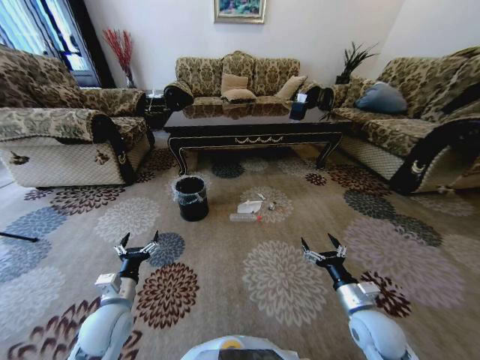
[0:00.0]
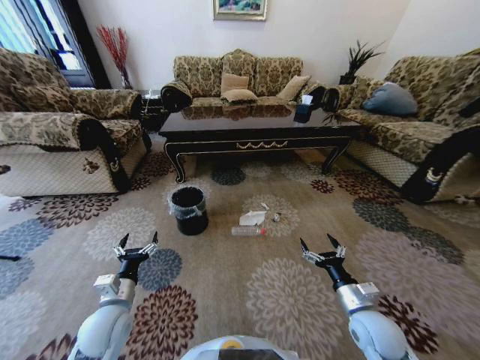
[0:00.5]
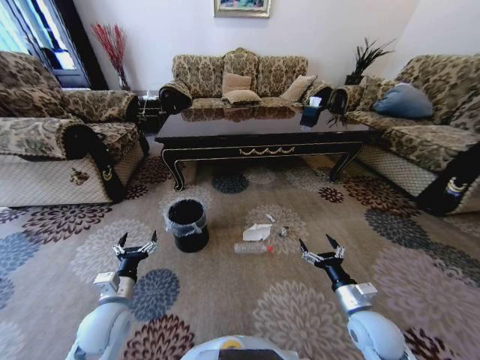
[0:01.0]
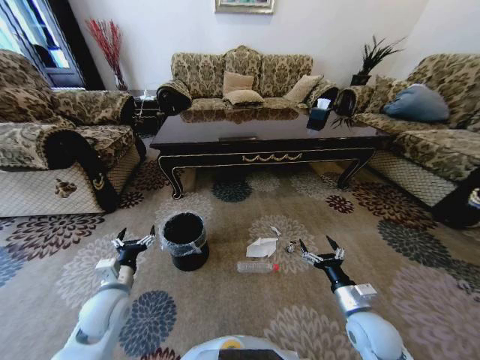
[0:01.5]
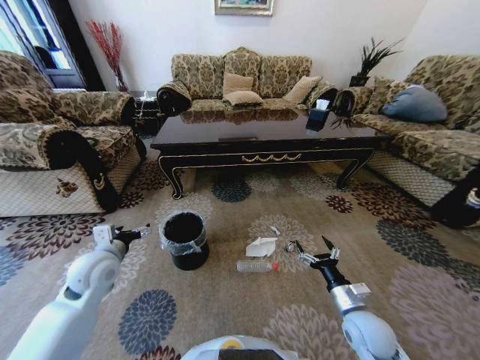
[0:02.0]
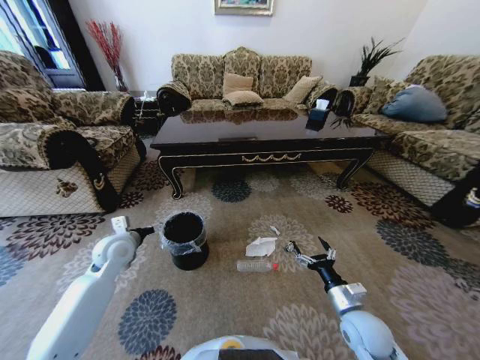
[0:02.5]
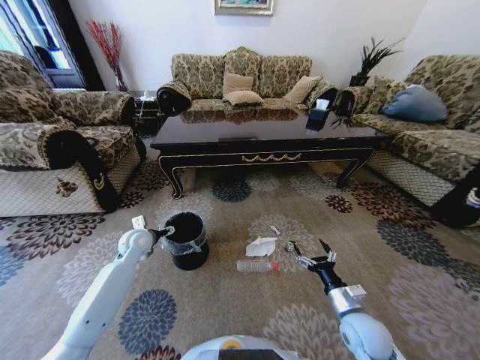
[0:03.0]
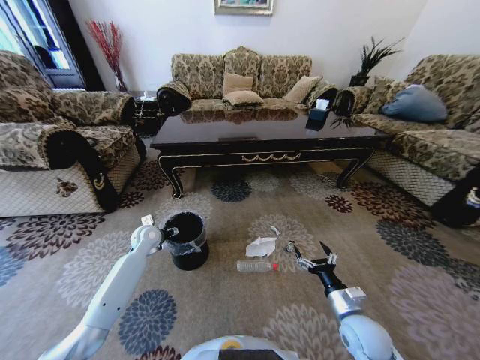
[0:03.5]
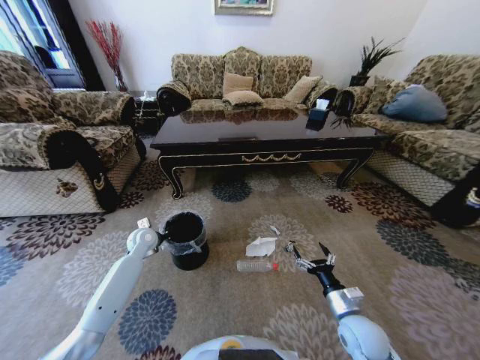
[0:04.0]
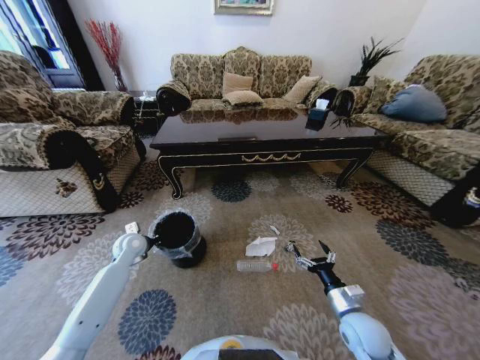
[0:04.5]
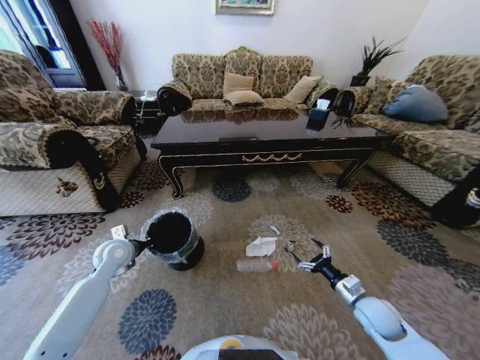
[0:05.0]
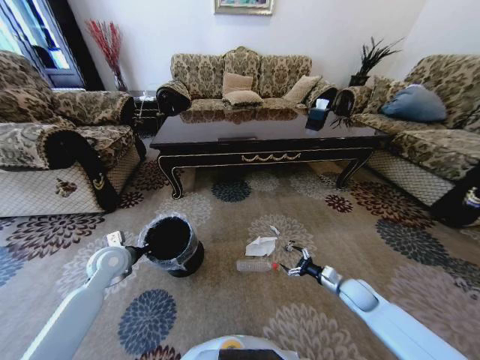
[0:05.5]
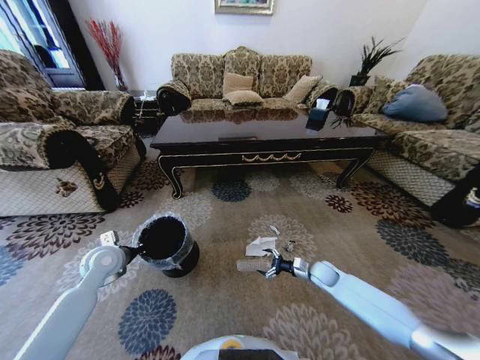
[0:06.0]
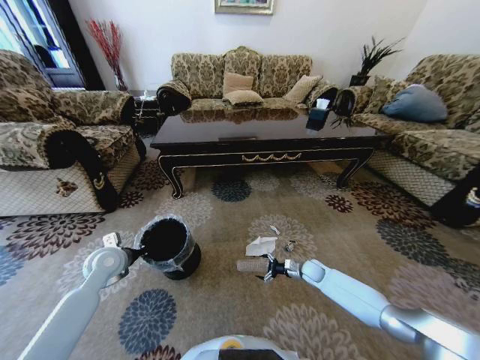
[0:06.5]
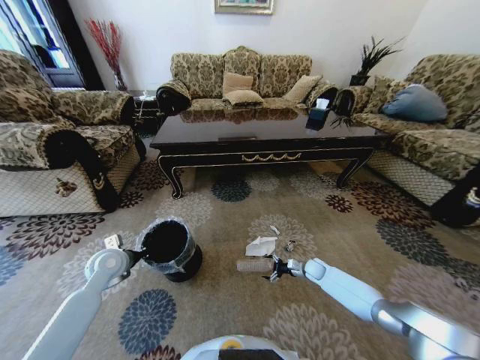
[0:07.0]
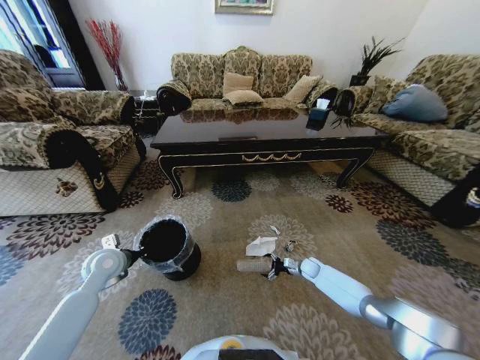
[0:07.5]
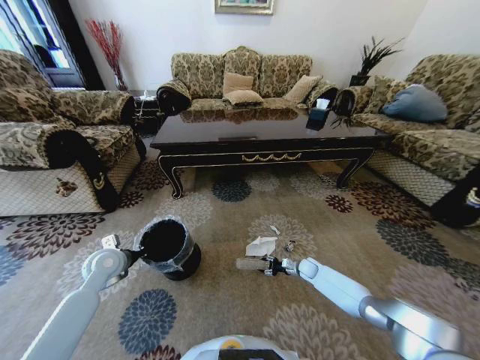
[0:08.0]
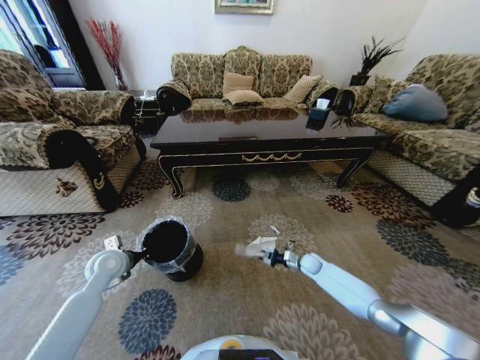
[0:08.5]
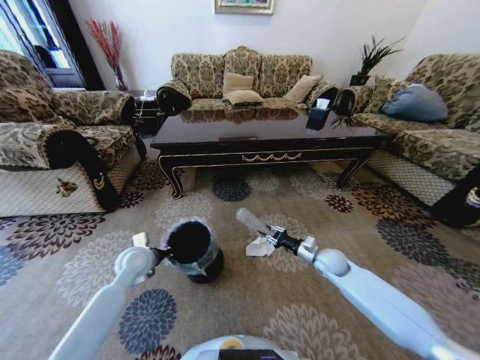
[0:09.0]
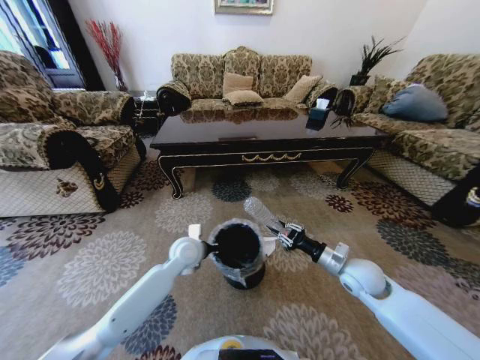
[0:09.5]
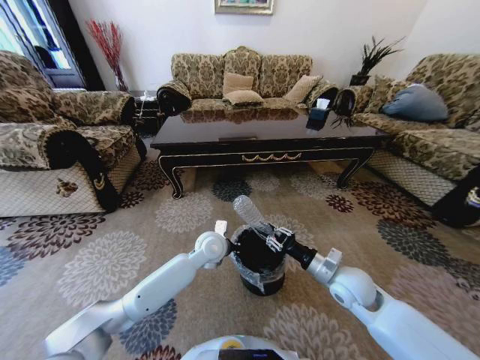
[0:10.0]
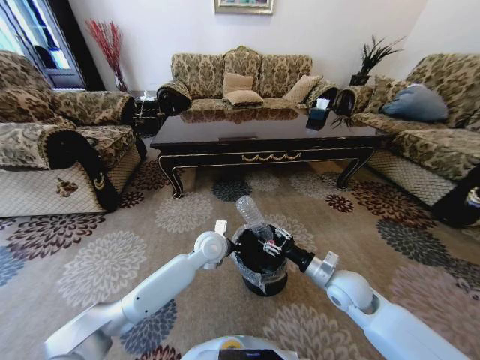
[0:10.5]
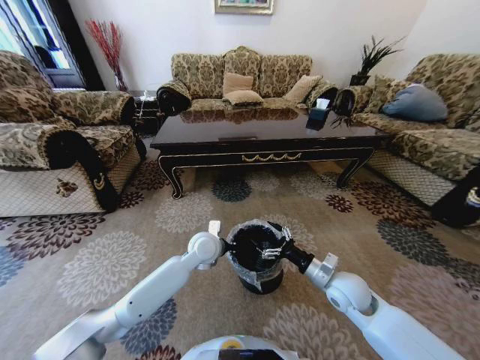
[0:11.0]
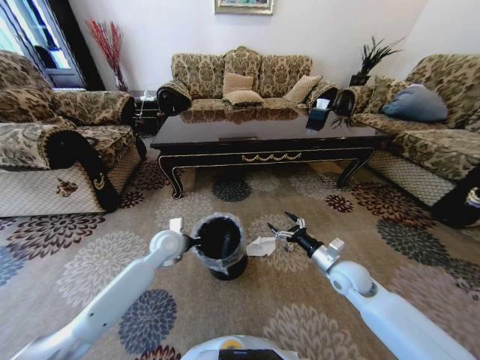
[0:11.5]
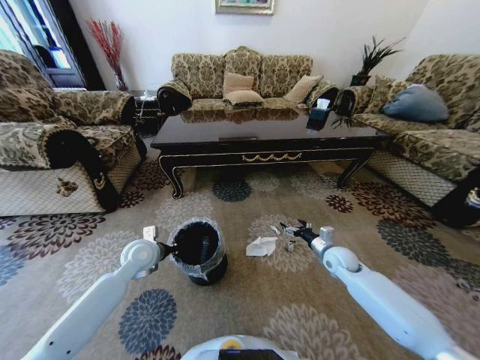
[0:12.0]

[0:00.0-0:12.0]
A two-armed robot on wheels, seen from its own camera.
Task of the whole recording: Move to the front of the table and pick up the trash from the floor, then place it into the trash bin.
0:00.0 to 0:02.0: The left gripper heads forward and upward, covering about 15 cm.
0:02.0 to 0:04.0: The left gripper shifts some 20 cm forward and downward, and closes up.
0:04.0 to 0:06.0: The right gripper travels forward and downward by some 20 cm, while the left gripper shifts some 15 cm backward, upward and to the left.
0:06.0 to 0:08.0: The right gripper travels downward and forward by some 10 cm, and closes up.
0:08.0 to 0:10.0: The left gripper travels to the right by approximately 30 cm. The right gripper goes about 30 cm upward and backward.
0:10.0 to 0:12.0: The right gripper moves forward, downward and to the right, roughly 15 cm, and opens its fingers. The left gripper goes roughly 20 cm to the left.

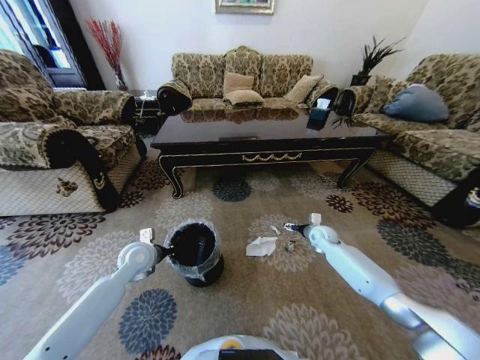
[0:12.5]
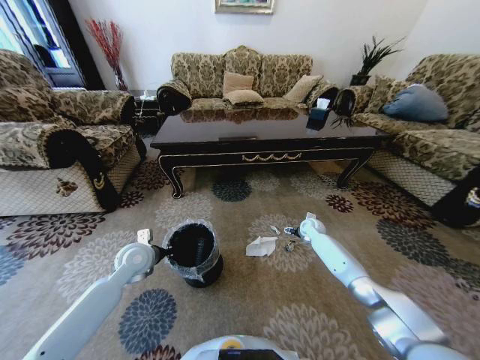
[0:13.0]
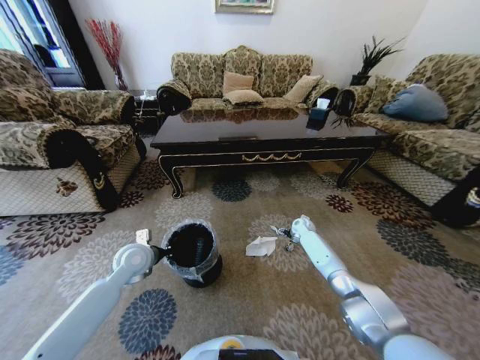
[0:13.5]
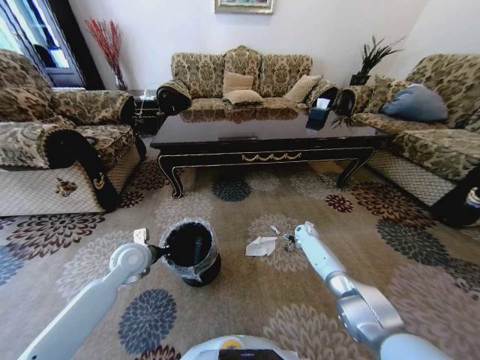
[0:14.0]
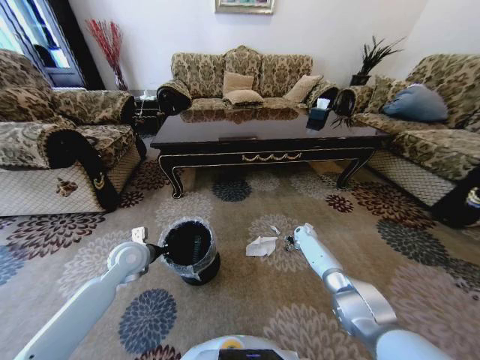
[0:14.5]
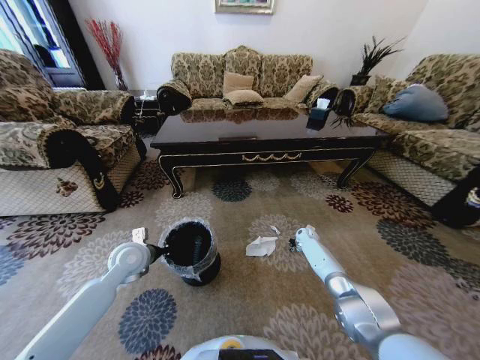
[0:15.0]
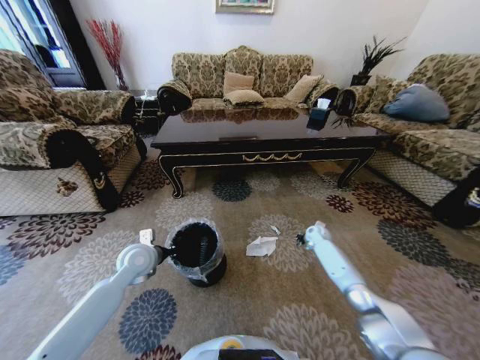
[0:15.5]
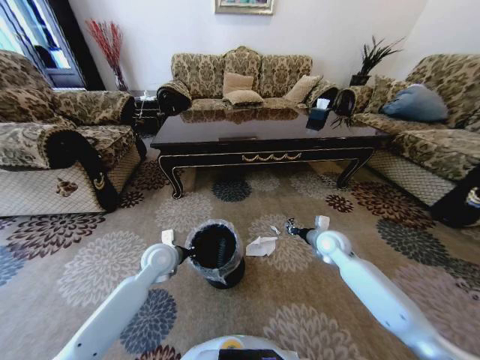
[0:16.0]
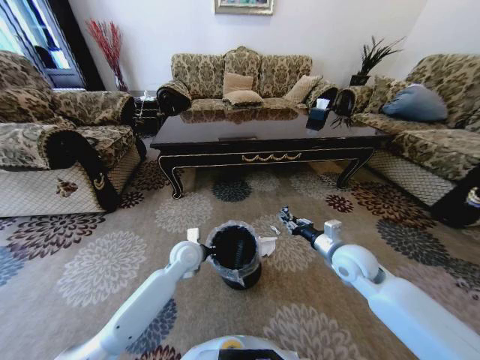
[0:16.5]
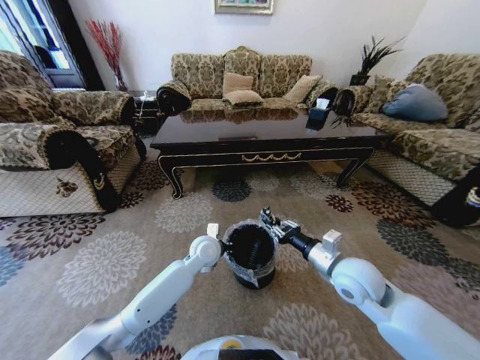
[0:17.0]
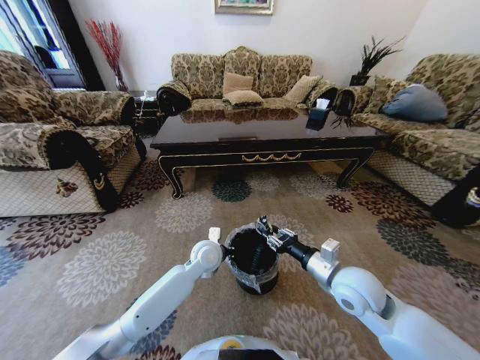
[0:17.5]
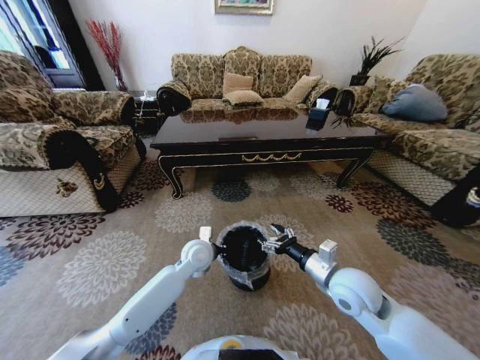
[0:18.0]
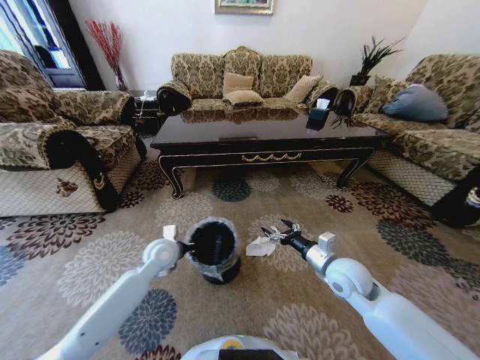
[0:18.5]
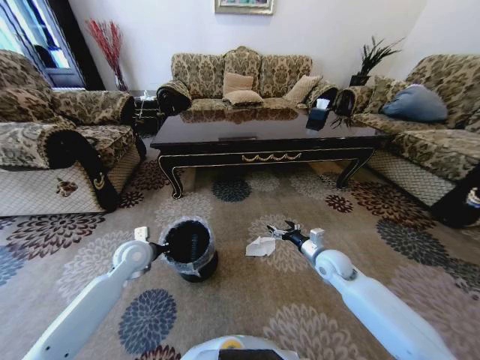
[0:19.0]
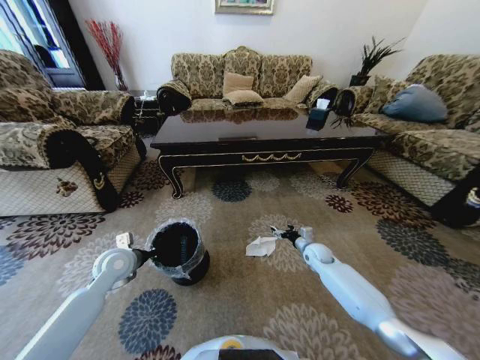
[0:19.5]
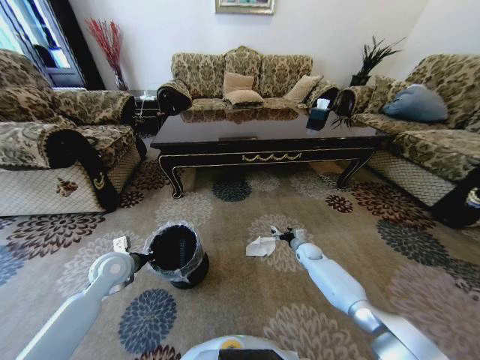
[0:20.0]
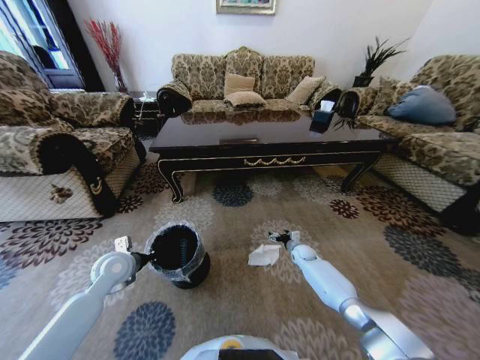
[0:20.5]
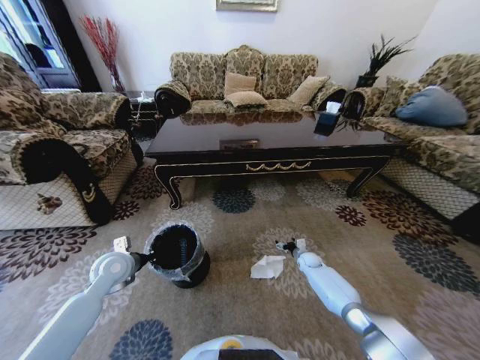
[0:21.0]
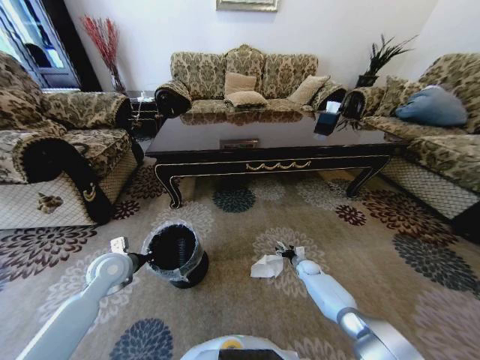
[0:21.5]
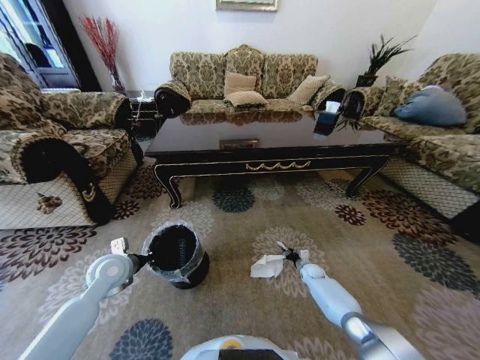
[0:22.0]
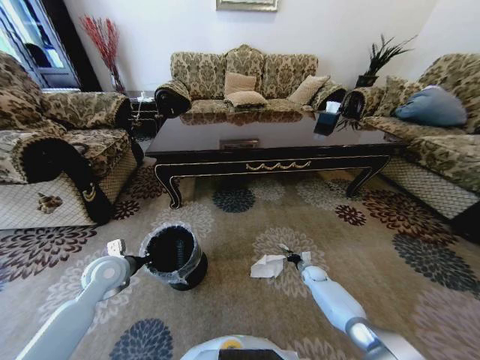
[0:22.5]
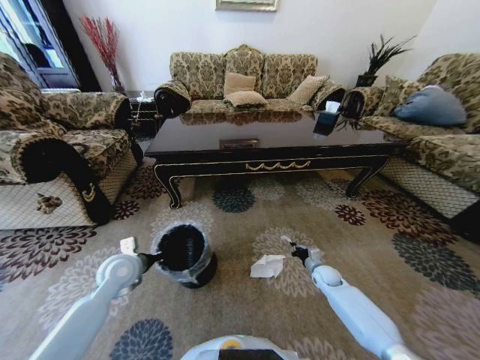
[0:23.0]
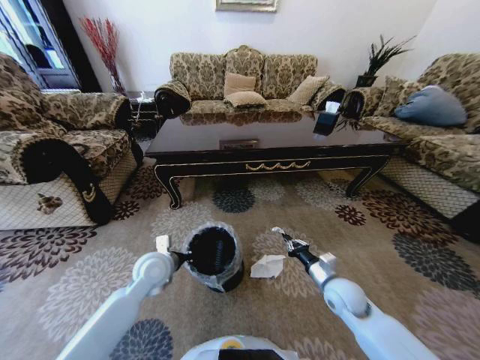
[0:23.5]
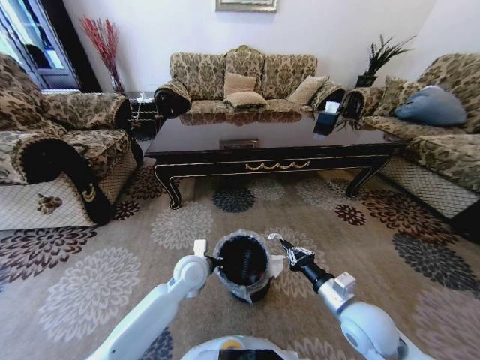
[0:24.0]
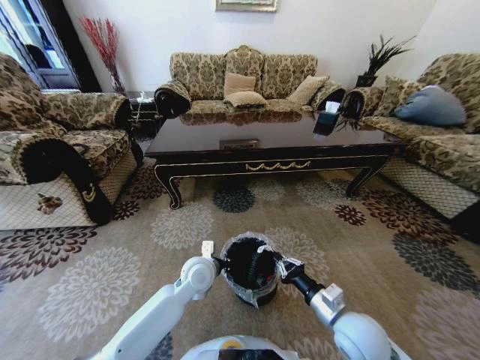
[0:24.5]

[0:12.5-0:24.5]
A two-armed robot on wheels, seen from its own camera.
Task of the whole recording: Move to the front of the table and pick up the trash from the floor, then place it into the trash bin.
0:12.5 to 0:14.5: The right gripper moves downward and forward, roughly 10 cm.
0:14.5 to 0:16.5: The right gripper heads backward and upward, covering some 30 cm, and closes up, while the left gripper is displaced to the right by roughly 15 cm.
0:16.5 to 0:18.5: The left gripper is displaced to the left by about 5 cm. The right gripper opens.
0:18.5 to 0:20.5: The right gripper heads downward and forward, covering roughly 30 cm, while the left gripper travels to the left by about 10 cm.
0:20.5 to 0:22.5: The right gripper is displaced downward and backward by some 10 cm, and closes its fingers.
0:22.5 to 0:24.5: The right gripper is displaced upward and backward by roughly 35 cm. The left gripper heads to the right, covering about 25 cm.

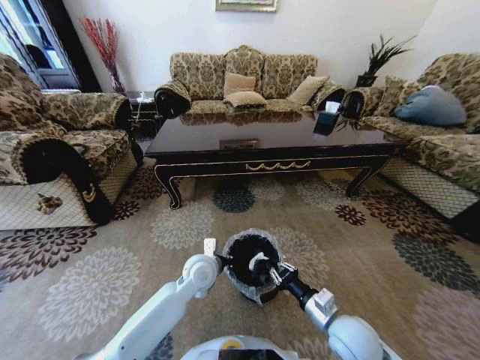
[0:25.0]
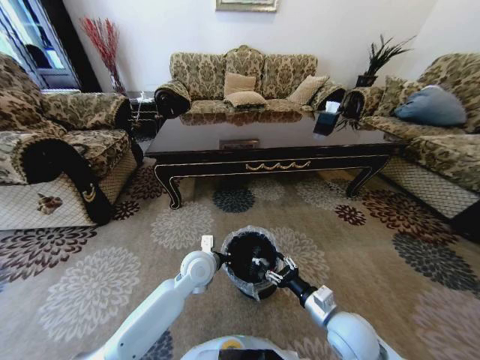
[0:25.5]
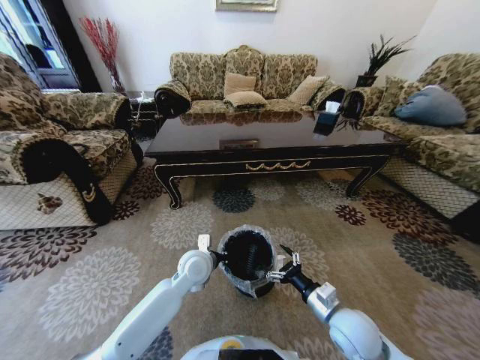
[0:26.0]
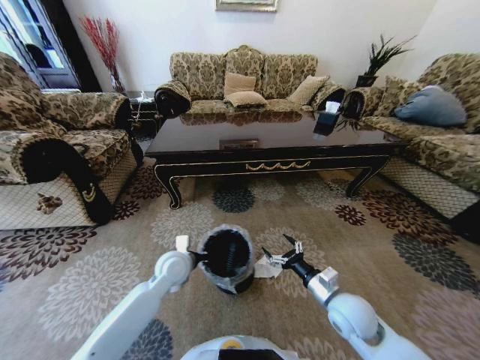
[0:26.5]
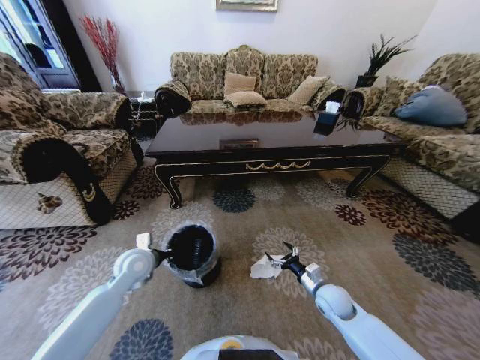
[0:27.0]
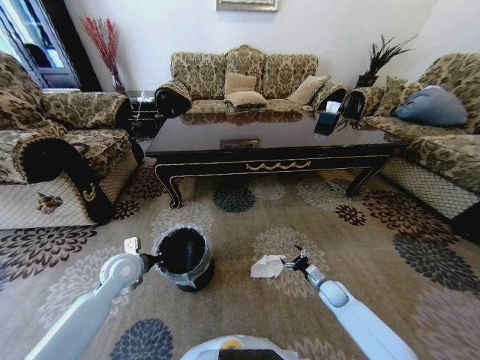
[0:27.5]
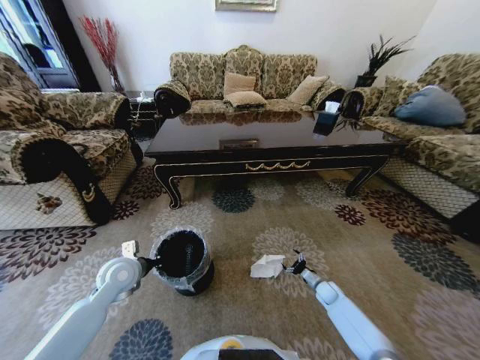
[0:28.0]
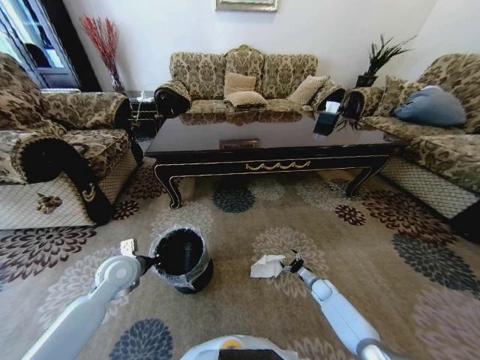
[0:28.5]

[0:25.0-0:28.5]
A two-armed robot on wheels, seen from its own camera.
Task of the whole recording: Move to the front of the table and pick up the trash from the floor, then place it into the trash bin.
0:25.0 to 0:27.0: The left gripper travels to the left by about 20 cm, while the right gripper moves forward, downward and to the right, roughly 15 cm, and opens its fingers.
0:27.0 to 0:28.5: The right gripper shifts some 20 cm downward, to the right and forward.
